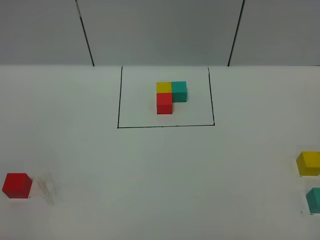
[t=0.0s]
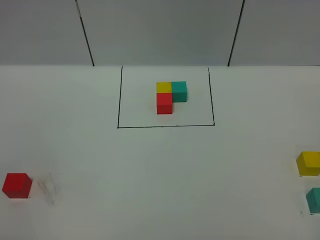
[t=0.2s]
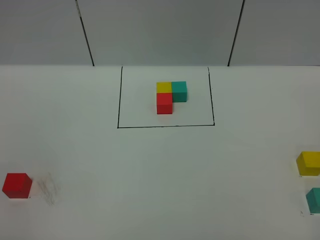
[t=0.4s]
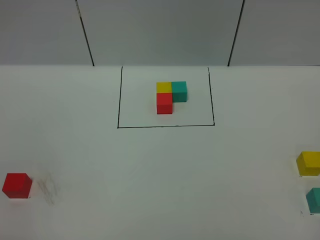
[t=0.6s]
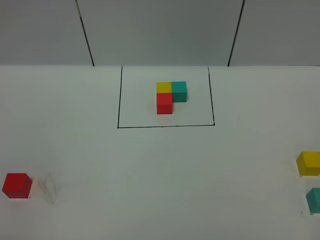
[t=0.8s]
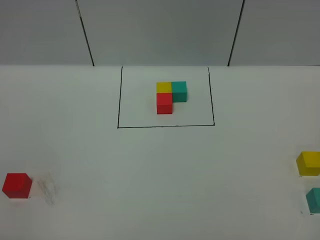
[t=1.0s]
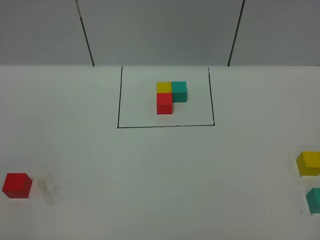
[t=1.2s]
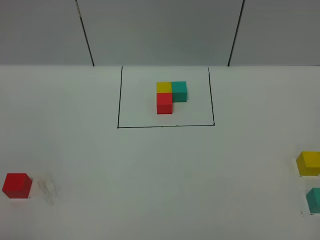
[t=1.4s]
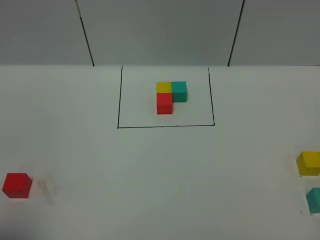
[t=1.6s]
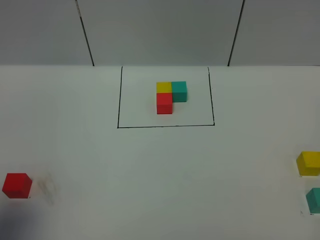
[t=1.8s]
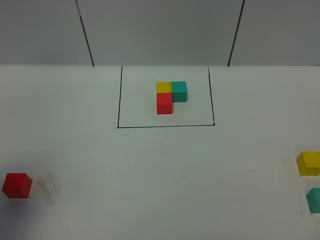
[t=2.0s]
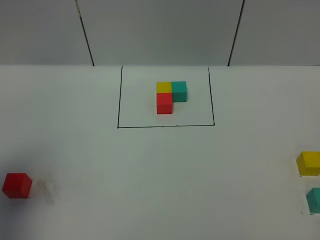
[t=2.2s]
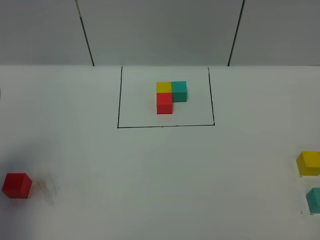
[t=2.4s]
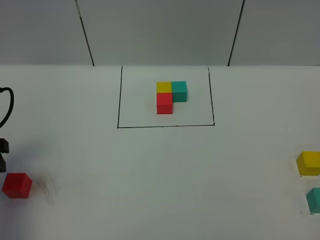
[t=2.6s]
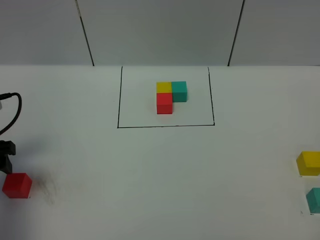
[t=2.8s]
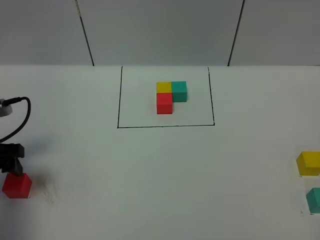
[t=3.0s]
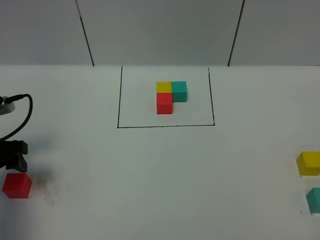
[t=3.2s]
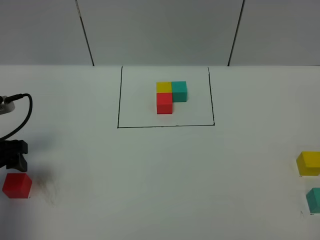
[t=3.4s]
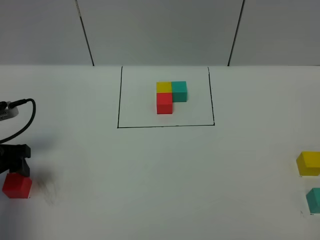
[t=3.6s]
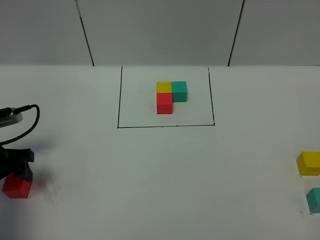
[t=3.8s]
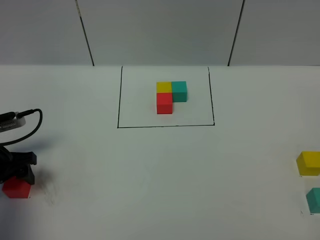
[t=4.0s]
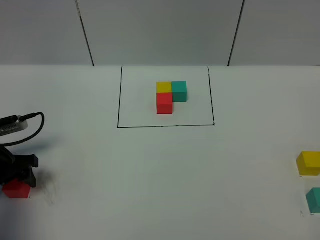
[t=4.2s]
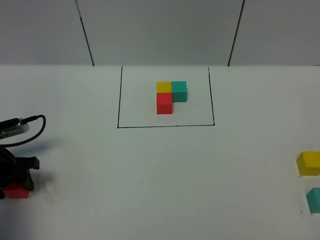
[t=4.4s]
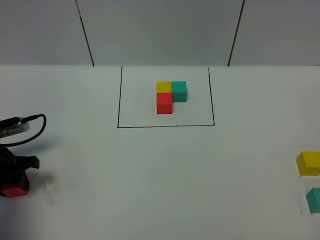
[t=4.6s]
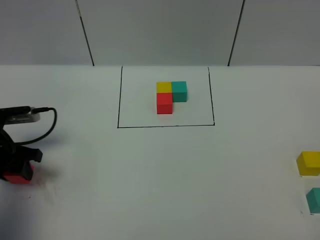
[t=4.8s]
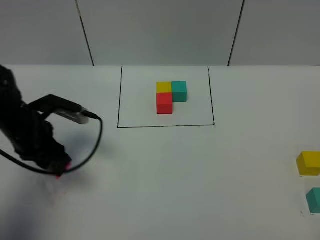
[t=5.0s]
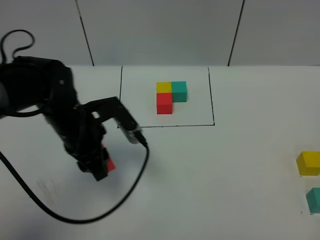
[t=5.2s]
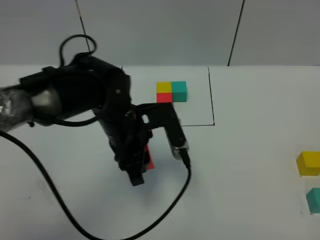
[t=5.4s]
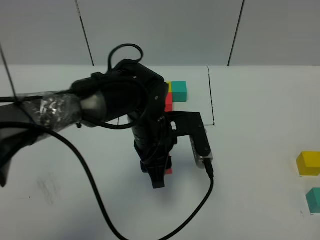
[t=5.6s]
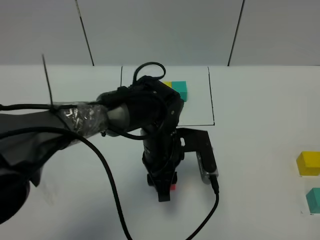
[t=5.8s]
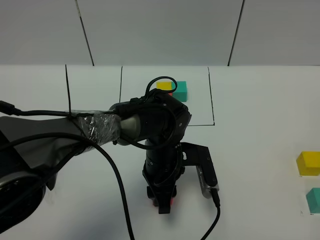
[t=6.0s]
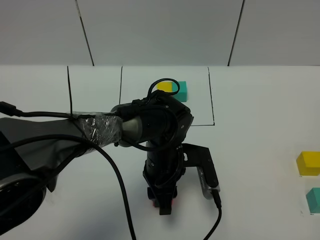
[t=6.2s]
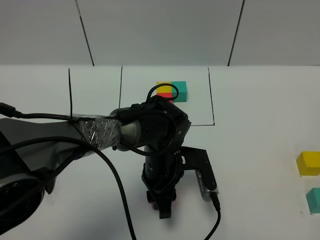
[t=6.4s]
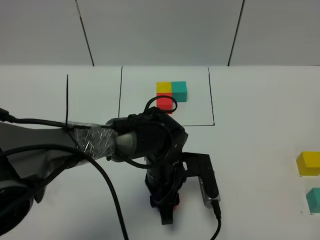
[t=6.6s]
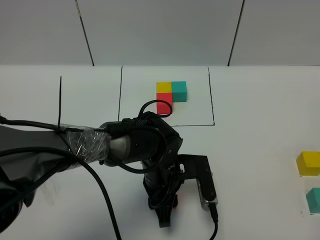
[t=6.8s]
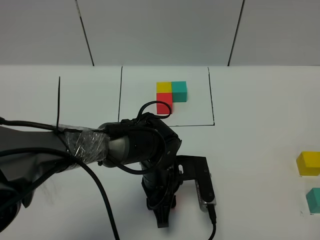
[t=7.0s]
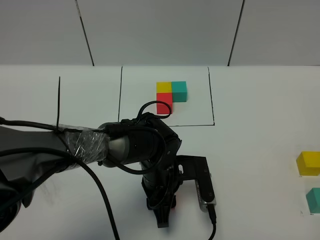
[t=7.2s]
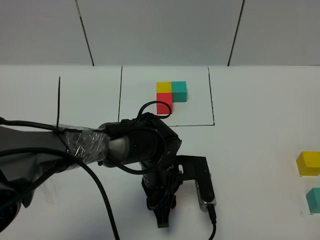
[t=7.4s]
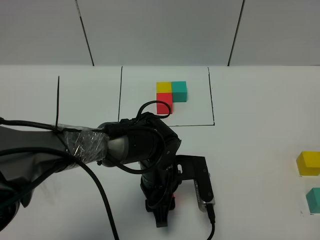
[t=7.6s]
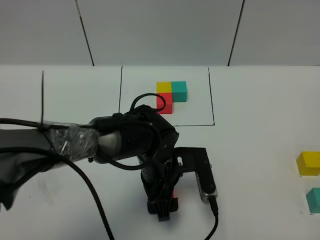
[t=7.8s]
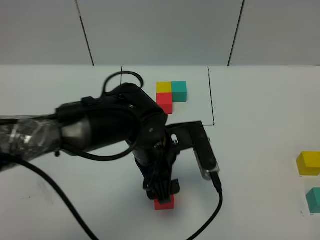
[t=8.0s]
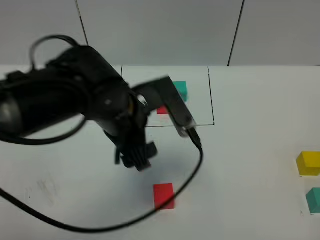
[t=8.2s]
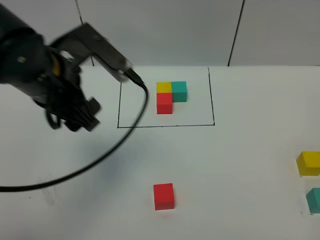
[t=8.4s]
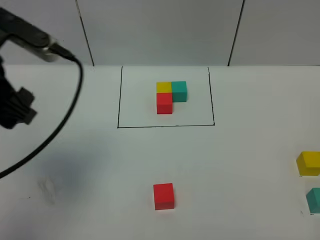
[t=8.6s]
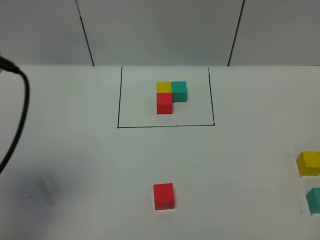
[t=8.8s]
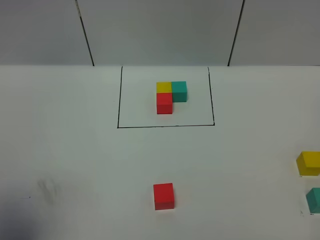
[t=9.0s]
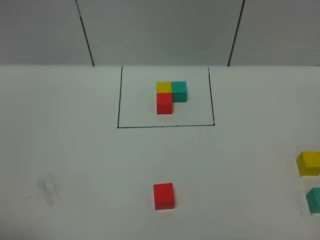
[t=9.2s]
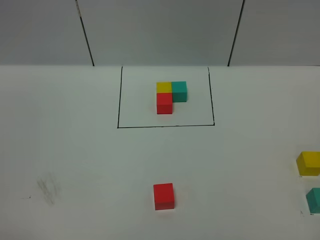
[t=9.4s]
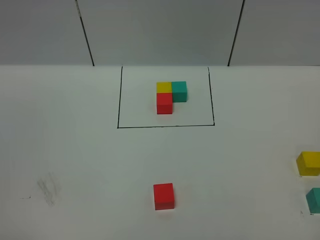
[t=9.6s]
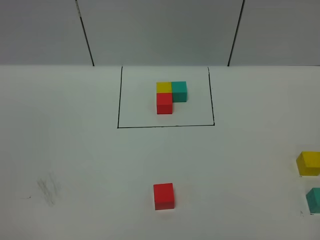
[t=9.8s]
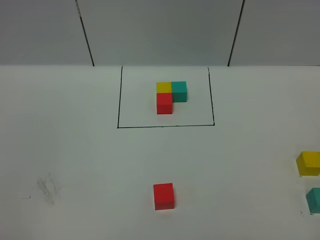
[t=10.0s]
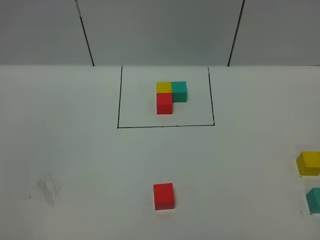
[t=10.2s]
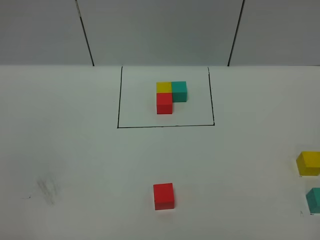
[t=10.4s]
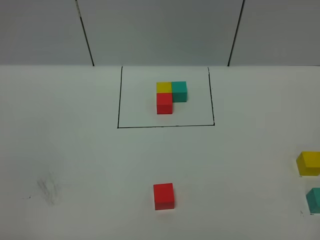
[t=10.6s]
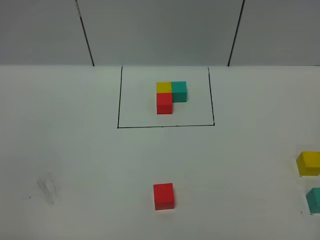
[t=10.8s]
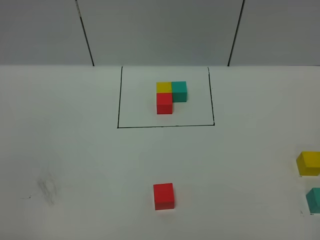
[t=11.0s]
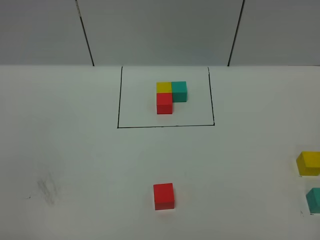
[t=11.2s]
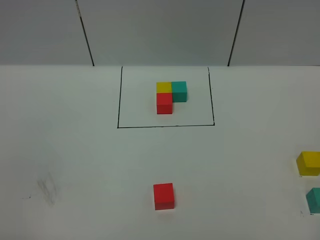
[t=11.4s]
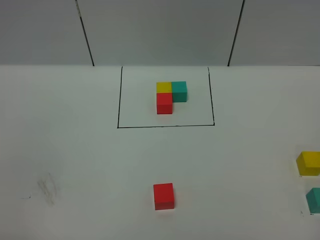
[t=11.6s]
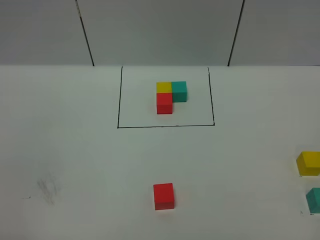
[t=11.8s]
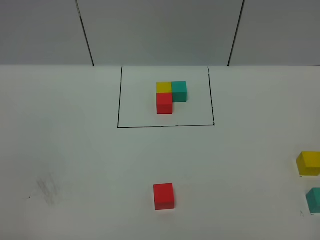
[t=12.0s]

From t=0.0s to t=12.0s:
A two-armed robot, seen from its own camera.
Task of the whole recording: According to the building block template in front, assemble the scattered blocks together.
Step, from t=2.6s to t=8.0s: Put the red cube in the center of the table.
From t=1.6s to t=3.0s: The left gripper is displaced forward and downward by approximately 25 cm.
From t=3.0s to t=4.4s: The left gripper goes approximately 5 cm downward, and closes its fingers.
From t=4.4s to t=6.0s: The left gripper goes approximately 35 cm to the right.
From t=6.0s to t=7.6s: The grippers move only a little.
From t=7.6s to t=9.0s: The left gripper moves upward, to the left and backward, some 40 cm, and opens up.
From t=9.0s to t=10.4s: The left gripper moves downward and backward, roughly 15 cm, and closes, then reopens.
From t=10.4s to t=12.0s: Both grippers stay put.

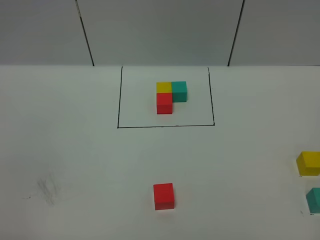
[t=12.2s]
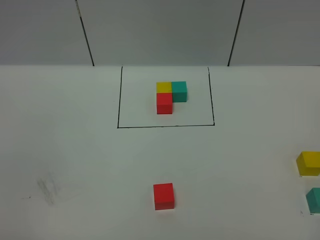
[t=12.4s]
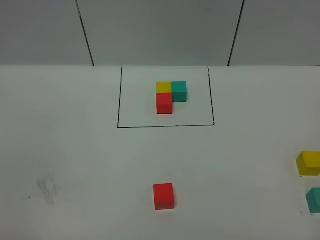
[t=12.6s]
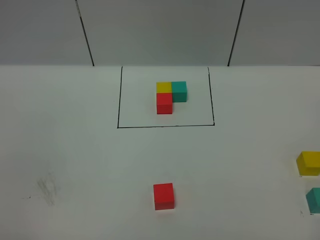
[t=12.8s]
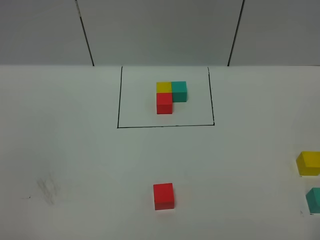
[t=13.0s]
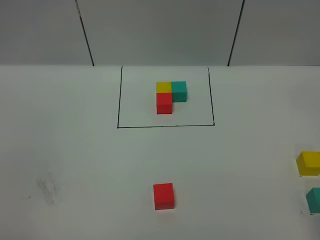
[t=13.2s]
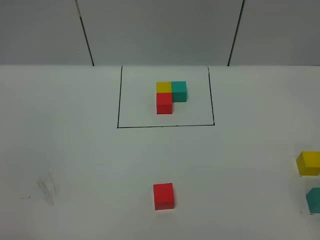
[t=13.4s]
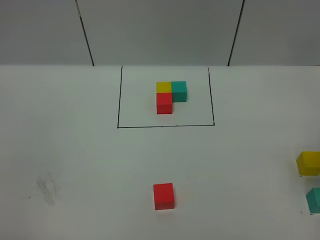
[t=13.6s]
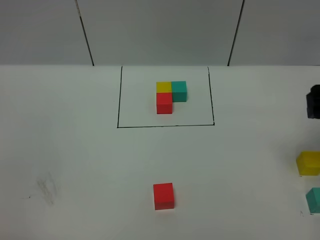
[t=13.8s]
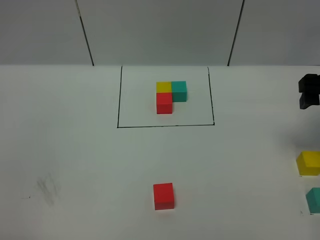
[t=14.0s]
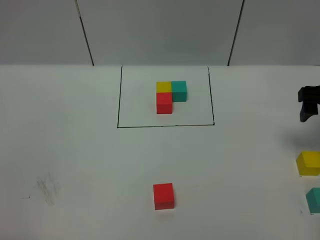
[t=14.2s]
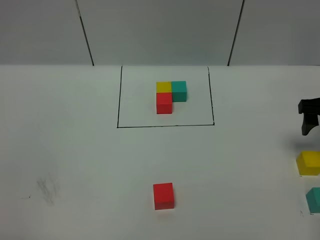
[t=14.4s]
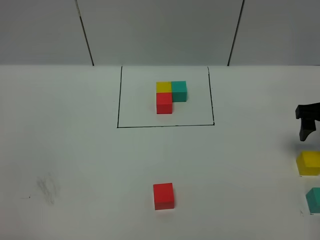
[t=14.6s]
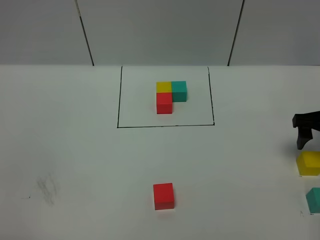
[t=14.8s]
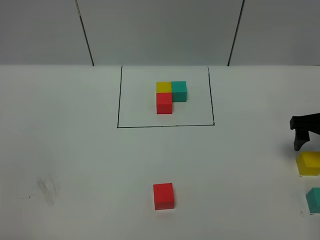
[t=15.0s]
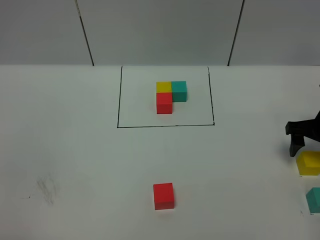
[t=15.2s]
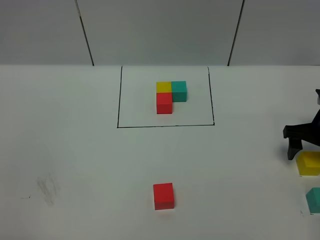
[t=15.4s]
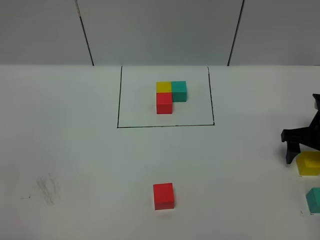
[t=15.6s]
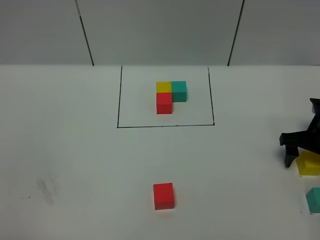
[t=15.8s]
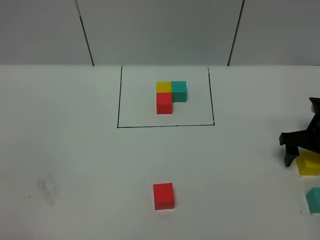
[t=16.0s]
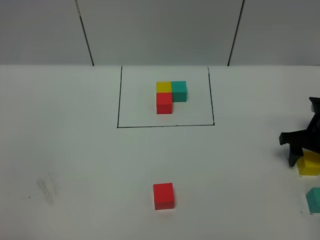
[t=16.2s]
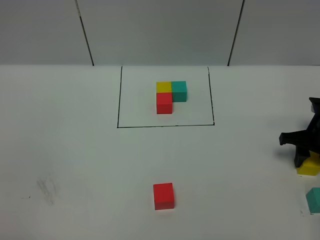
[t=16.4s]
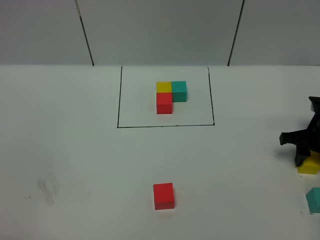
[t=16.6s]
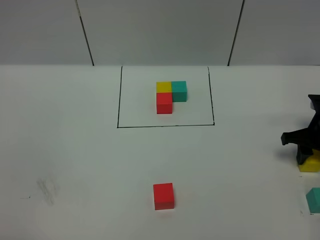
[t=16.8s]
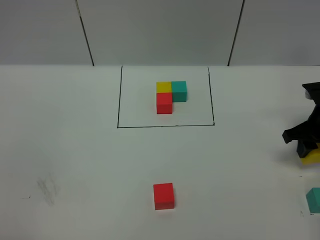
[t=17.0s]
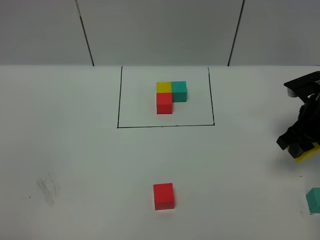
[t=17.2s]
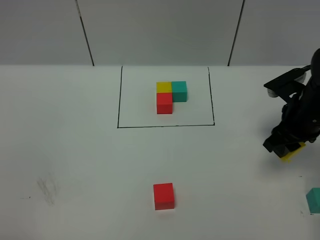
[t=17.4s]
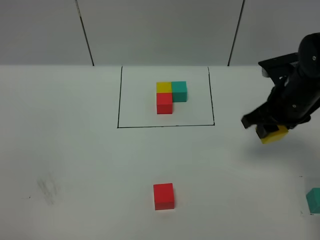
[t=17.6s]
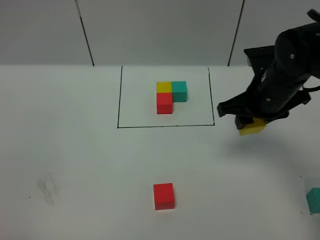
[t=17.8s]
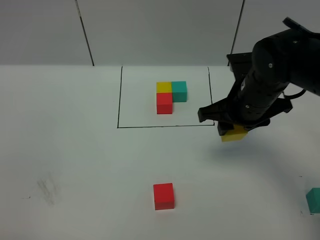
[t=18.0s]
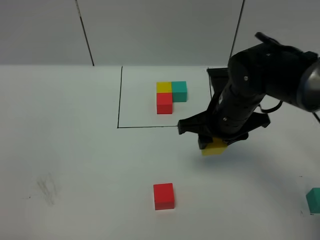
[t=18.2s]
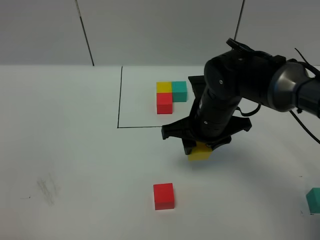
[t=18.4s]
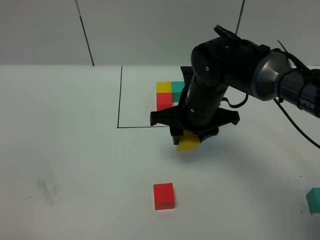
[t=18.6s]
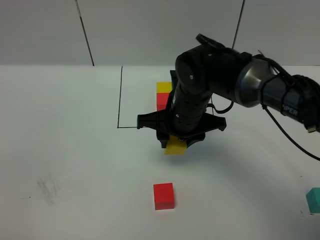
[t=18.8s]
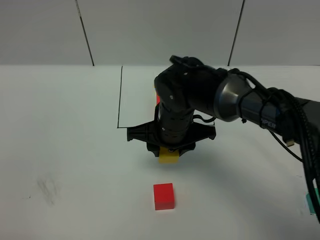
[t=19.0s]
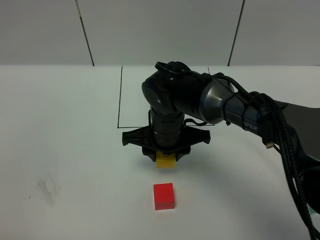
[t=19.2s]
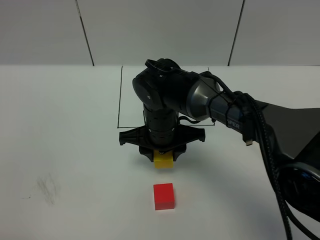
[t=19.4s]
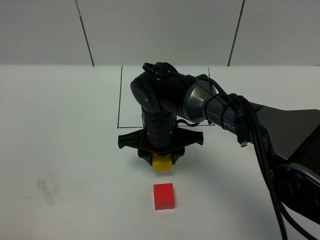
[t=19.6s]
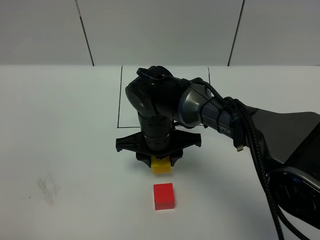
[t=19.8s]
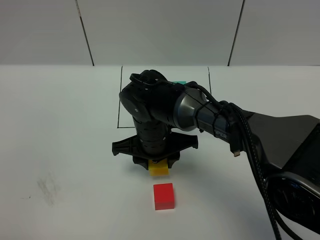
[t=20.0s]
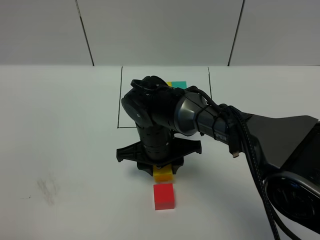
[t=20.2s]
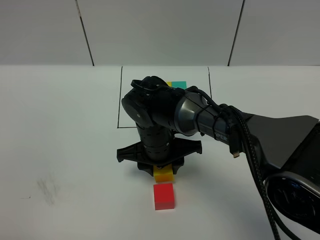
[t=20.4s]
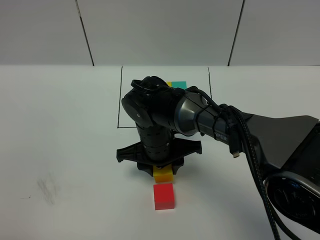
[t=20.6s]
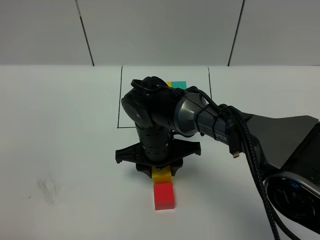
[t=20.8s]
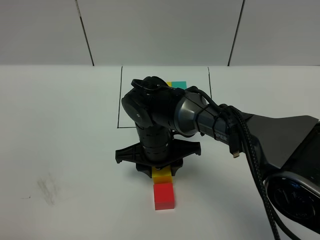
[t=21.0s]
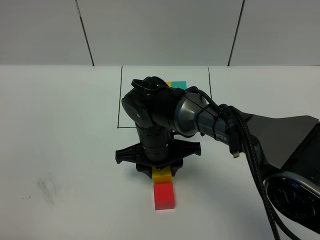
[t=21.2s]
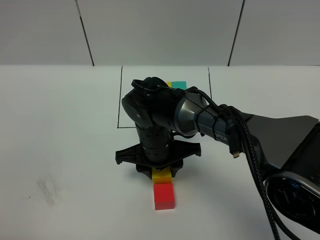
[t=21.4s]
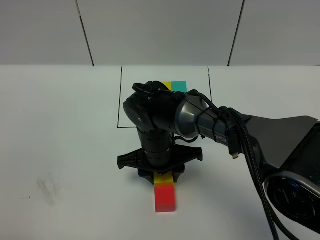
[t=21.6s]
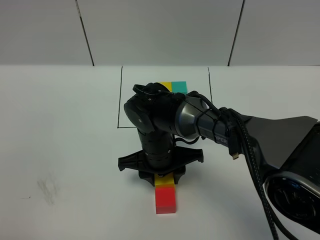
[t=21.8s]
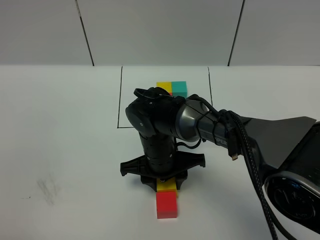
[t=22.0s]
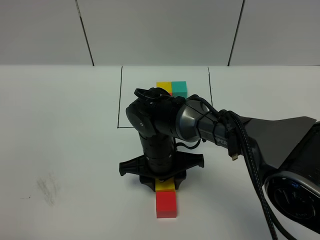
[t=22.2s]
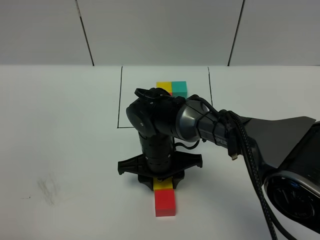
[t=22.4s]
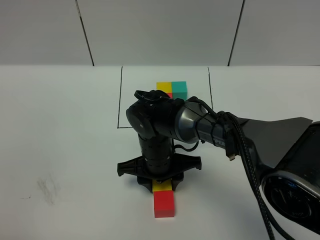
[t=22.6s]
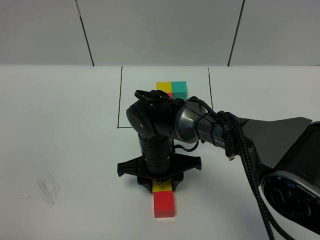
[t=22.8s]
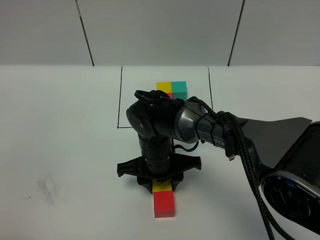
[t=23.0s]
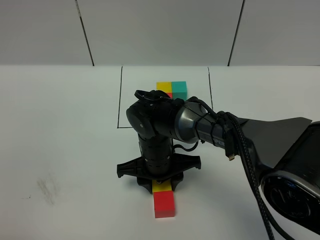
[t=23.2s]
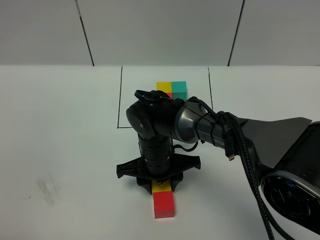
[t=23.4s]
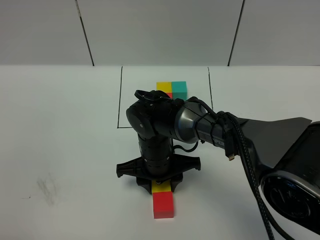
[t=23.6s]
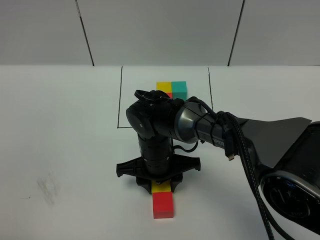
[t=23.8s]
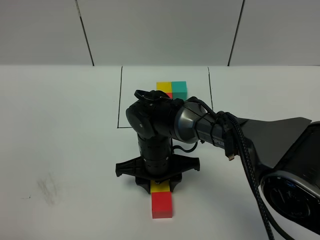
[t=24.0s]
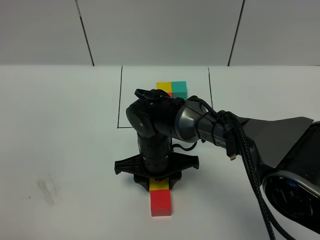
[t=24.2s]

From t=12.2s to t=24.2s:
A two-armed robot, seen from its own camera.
Task of the whole recording: According to the building block template in front, assemble the scattered blocks together.
From t=12.2s to t=13.8s: The right gripper heads forward, covering approximately 30 cm, and opens up.
From t=13.8s to t=15.2s: The right gripper is displaced downward and forward by about 15 cm.
From t=15.2s to t=16.6s: The right gripper closes its fingers.
From t=16.6s to t=18.2s: The right gripper travels to the left and upward by some 25 cm.
From t=18.2s to t=19.8s: The right gripper heads to the left and downward, covering about 15 cm.
From t=19.8s to t=22.6s: The grippers stay close to where they were, moving slightly.
From t=22.6s to t=24.2s: Both grippers stay put.
